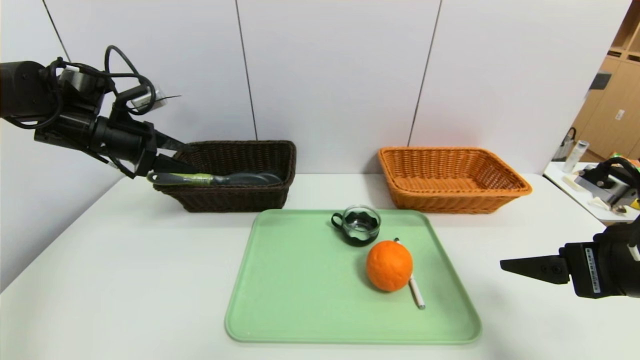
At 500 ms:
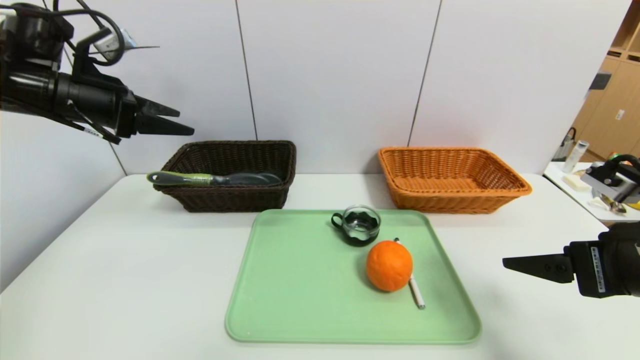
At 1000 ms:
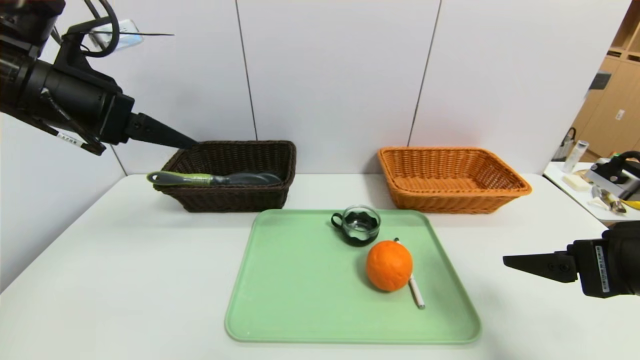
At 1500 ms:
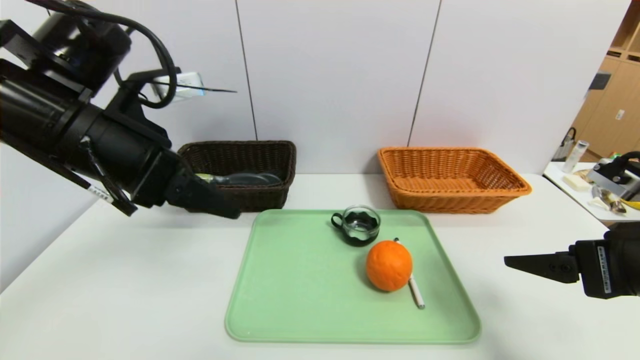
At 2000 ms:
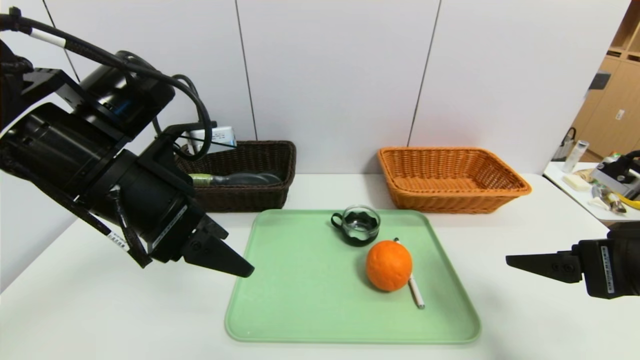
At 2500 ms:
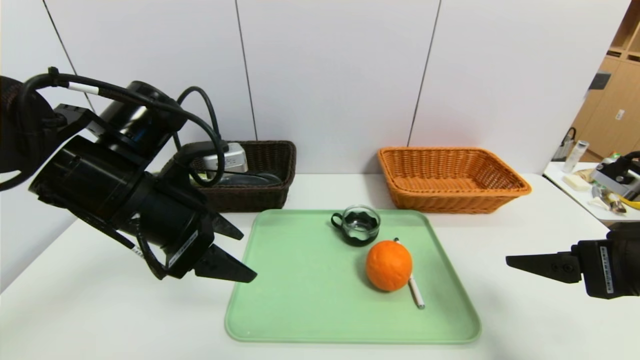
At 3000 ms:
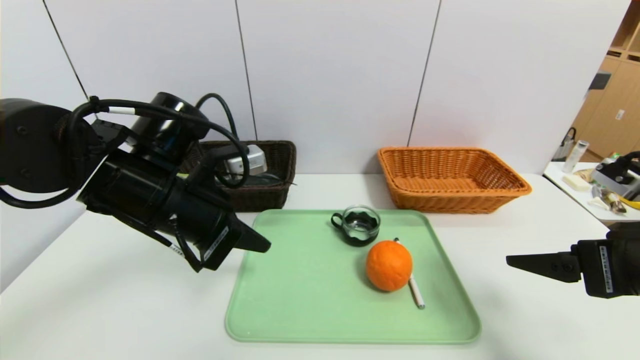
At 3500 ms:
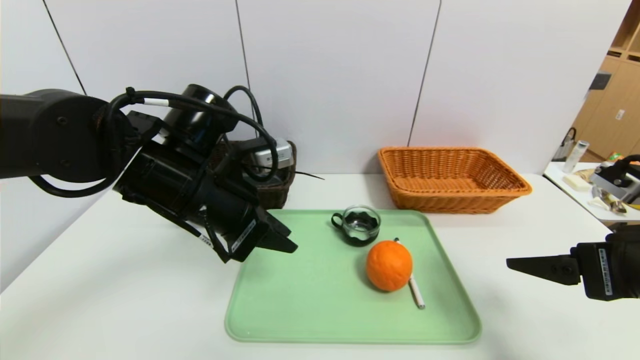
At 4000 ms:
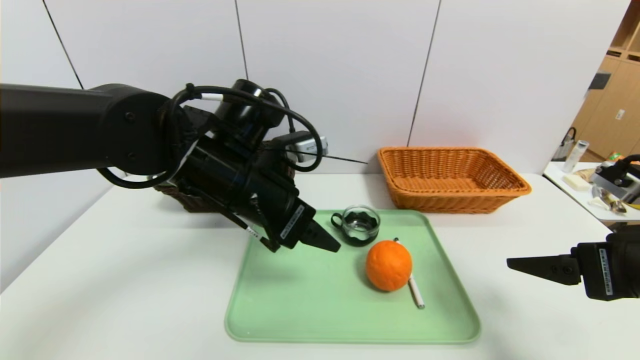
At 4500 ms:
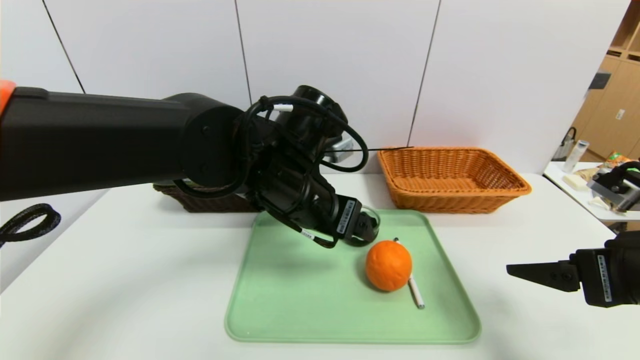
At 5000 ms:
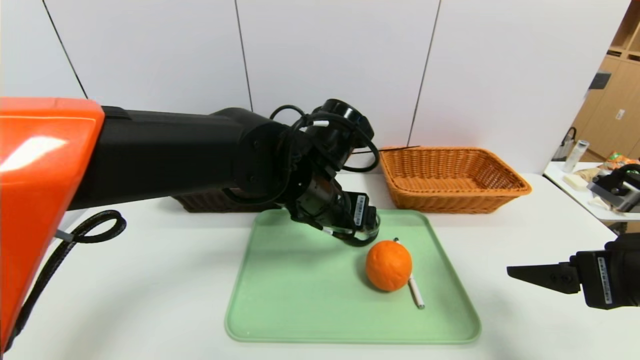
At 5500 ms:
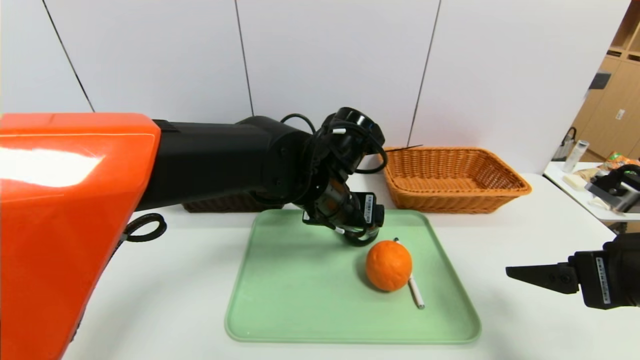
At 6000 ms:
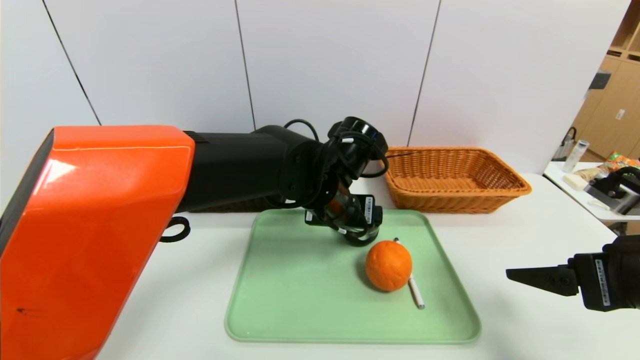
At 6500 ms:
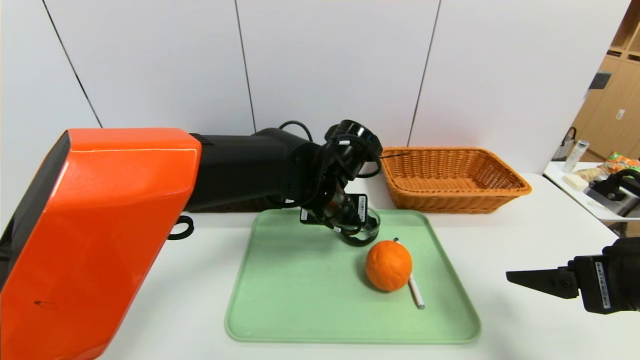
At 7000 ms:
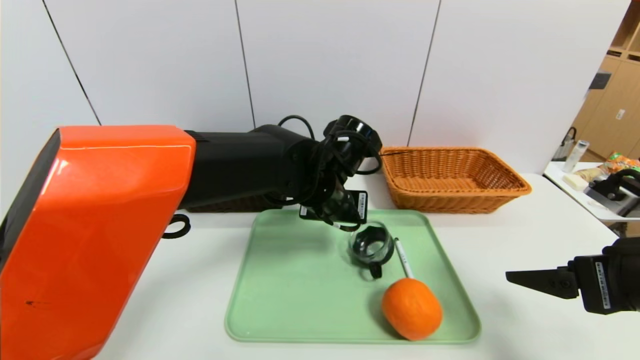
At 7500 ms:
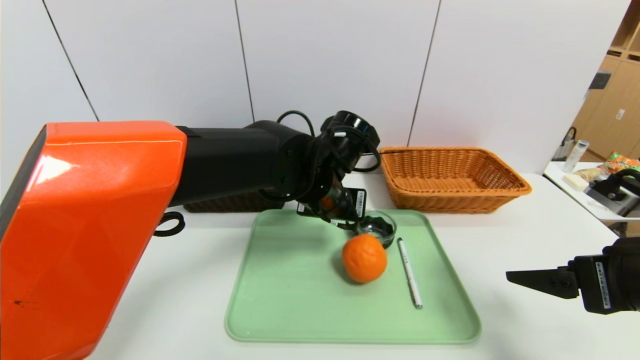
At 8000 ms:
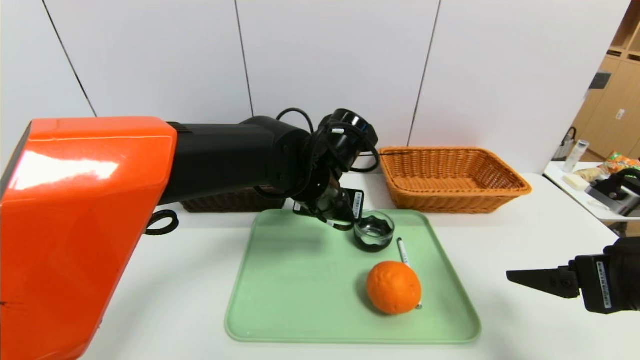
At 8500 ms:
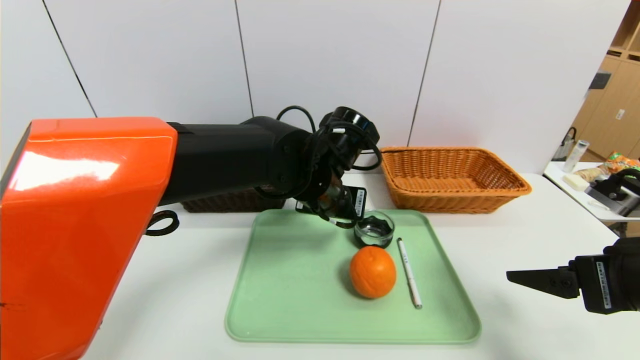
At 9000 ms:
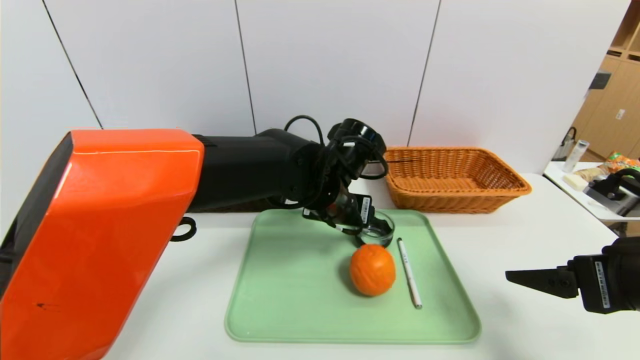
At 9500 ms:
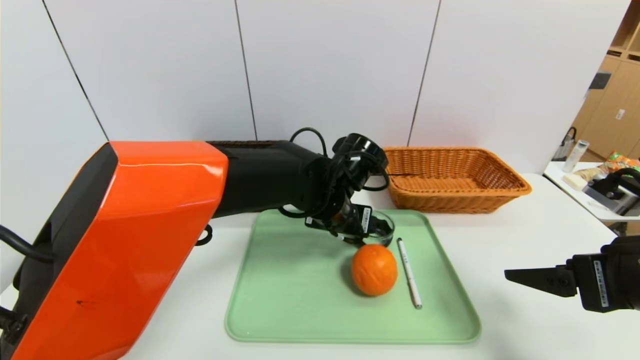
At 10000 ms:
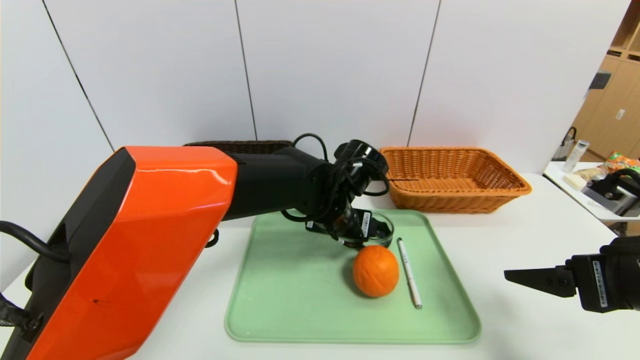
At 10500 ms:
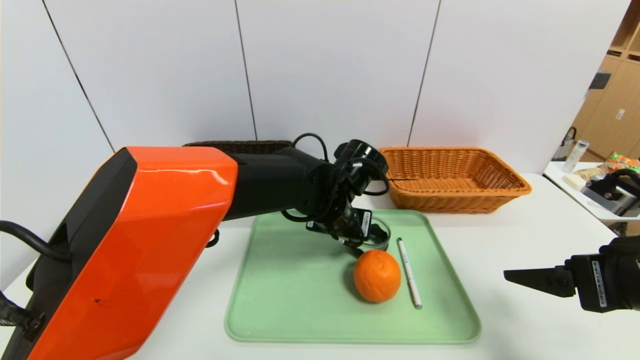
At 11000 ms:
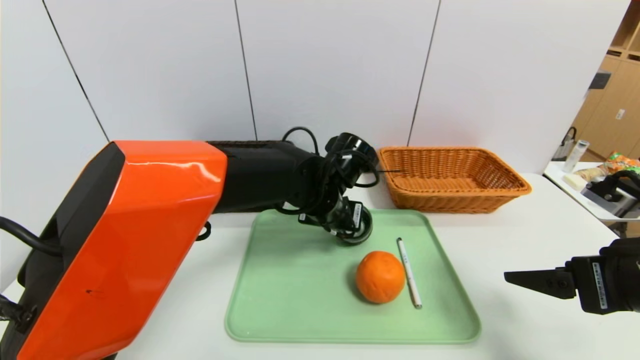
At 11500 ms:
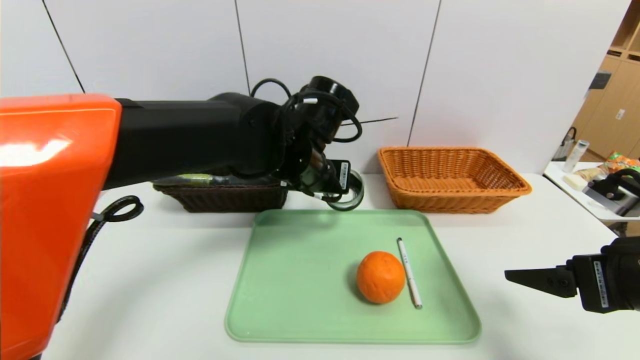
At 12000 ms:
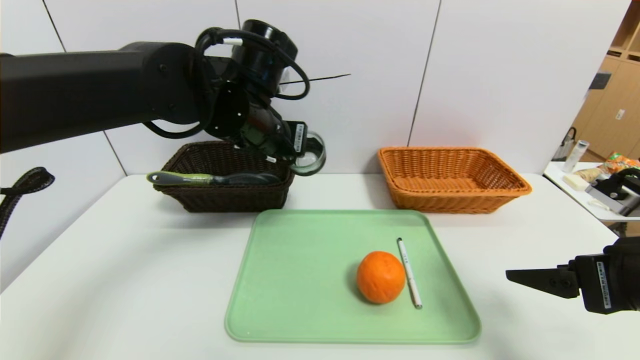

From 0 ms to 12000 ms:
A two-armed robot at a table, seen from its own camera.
Task of the whole recording: place the food in the right basket with the right gripper, and place the non food items in the left basket with the left gripper.
From 0 ms to 2000 ms: The left gripper shifts roughly 20 cm backward and to the right.
From 2000 ms to 4000 ms: The left gripper shifts roughly 10 cm to the right, and closes and opens again.
From 4000 ms to 6000 ms: The left gripper moves to the right, approximately 10 cm.
From 6000 ms to 8000 ms: The left gripper closes its fingers.
From 8000 ms to 10000 ms: The left gripper moves some 5 cm, and opens up.
From 10000 ms to 12000 ms: The left gripper shifts about 15 cm upward and to the left, and closes.

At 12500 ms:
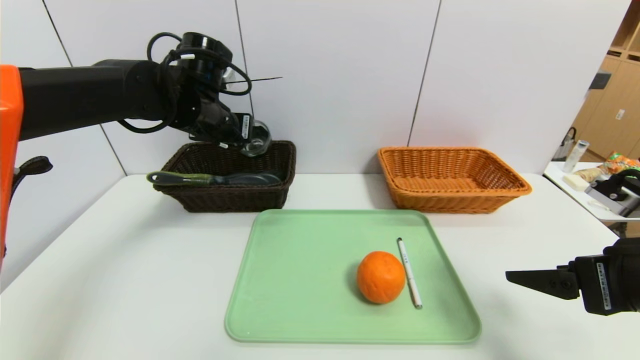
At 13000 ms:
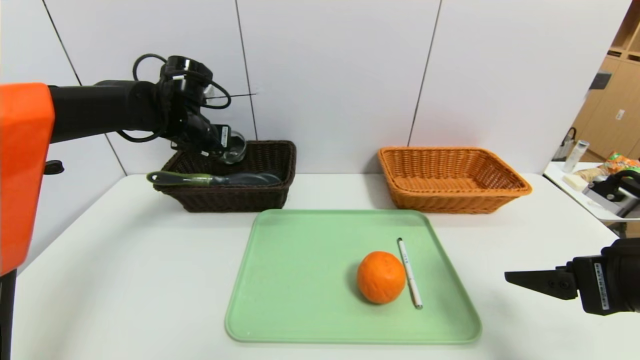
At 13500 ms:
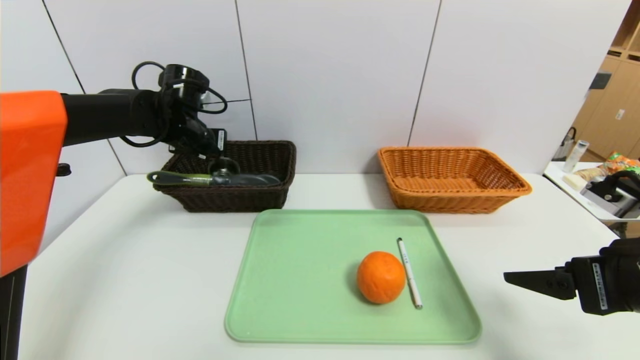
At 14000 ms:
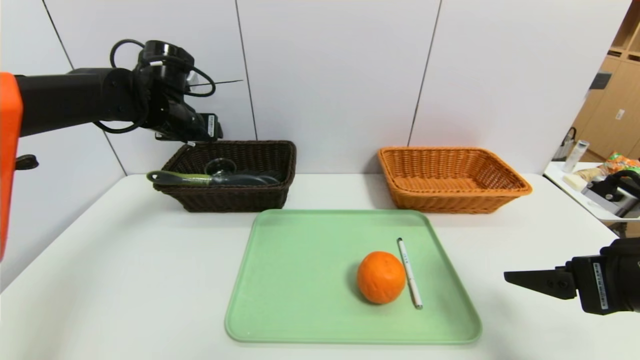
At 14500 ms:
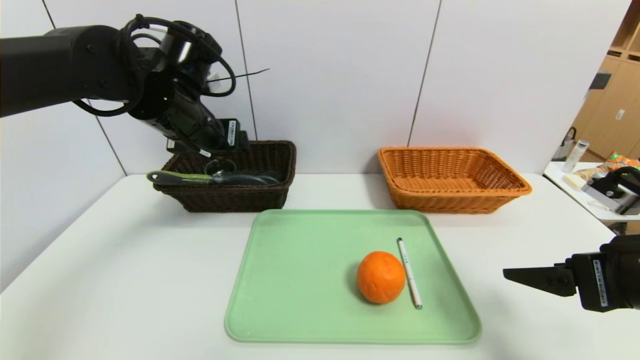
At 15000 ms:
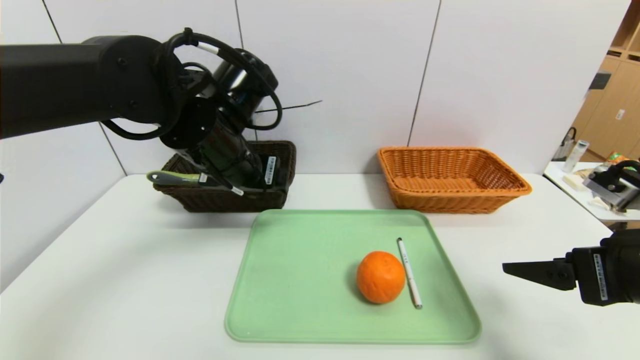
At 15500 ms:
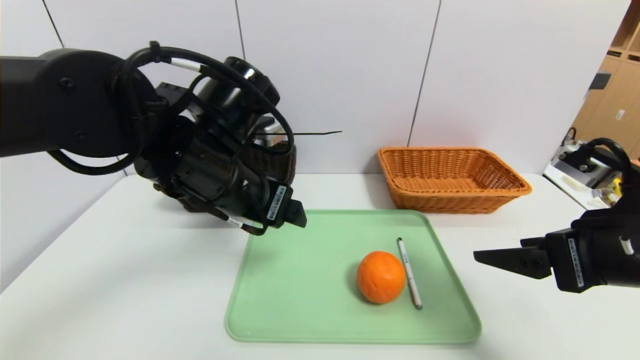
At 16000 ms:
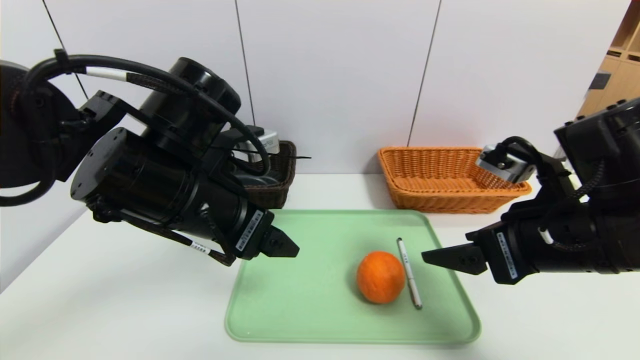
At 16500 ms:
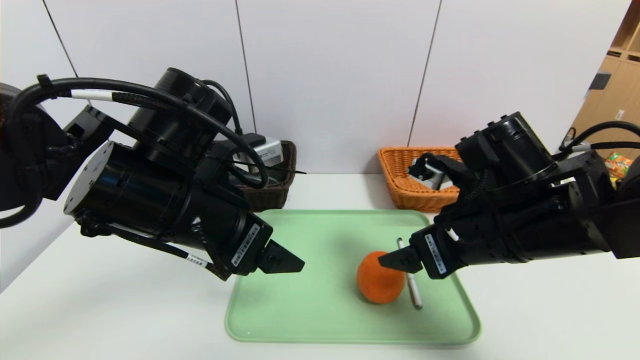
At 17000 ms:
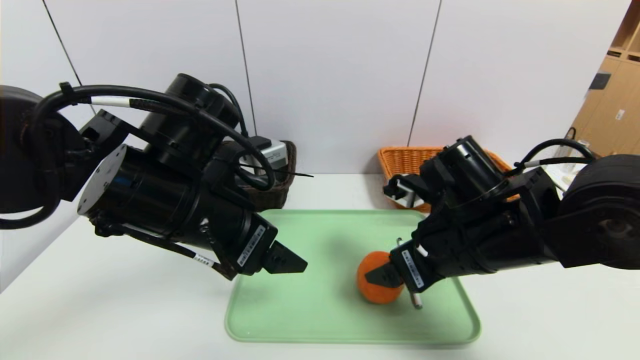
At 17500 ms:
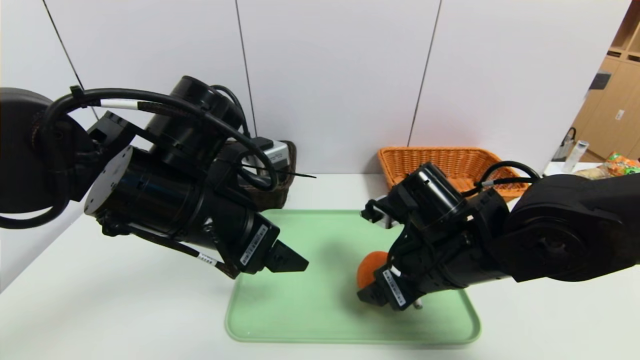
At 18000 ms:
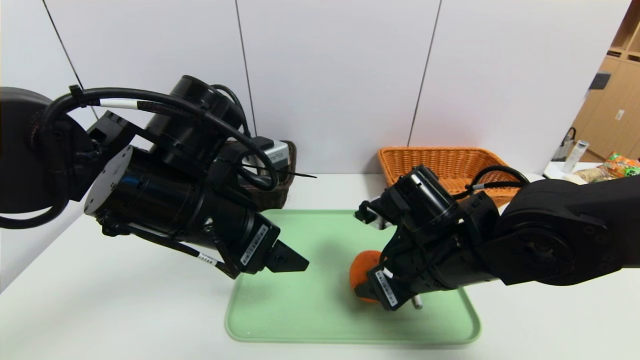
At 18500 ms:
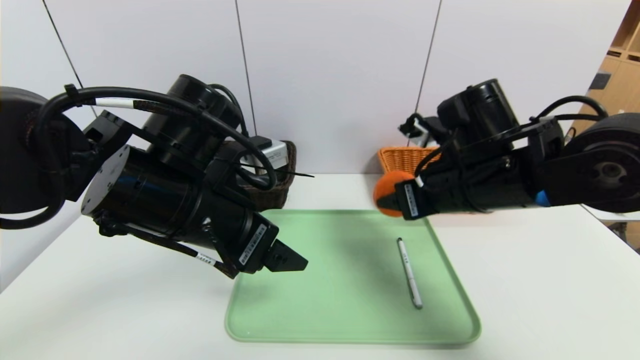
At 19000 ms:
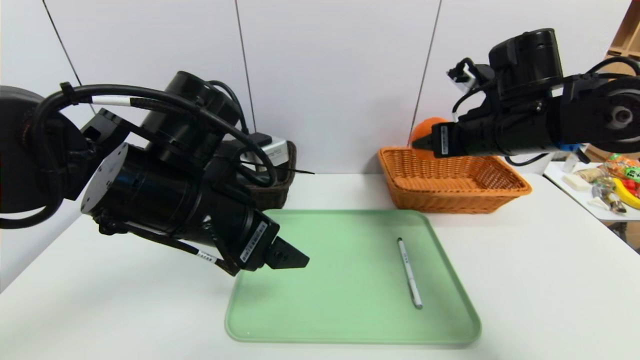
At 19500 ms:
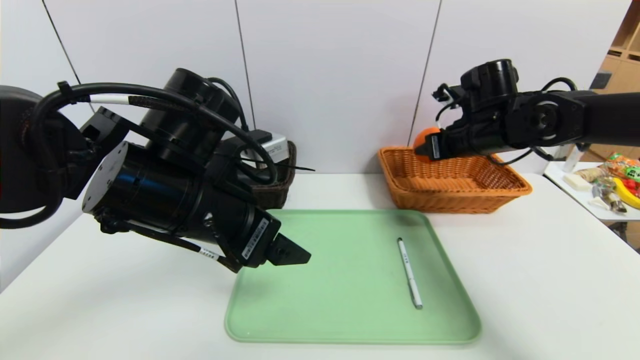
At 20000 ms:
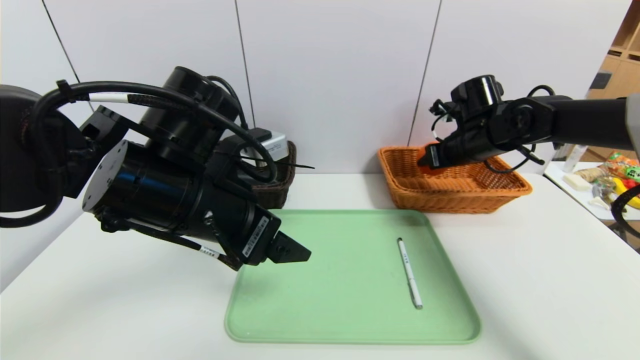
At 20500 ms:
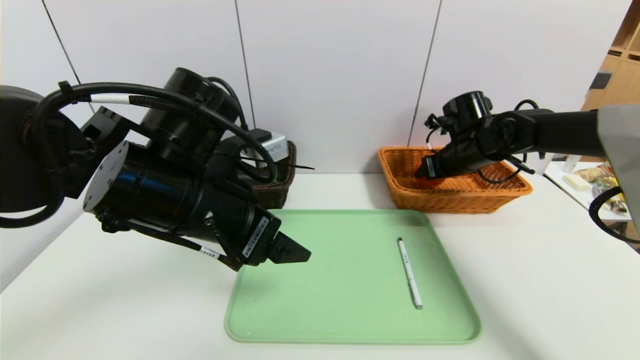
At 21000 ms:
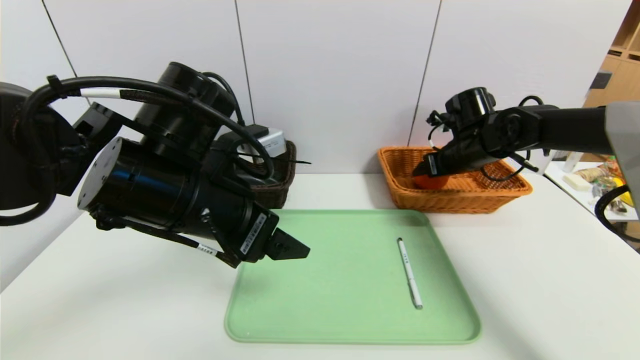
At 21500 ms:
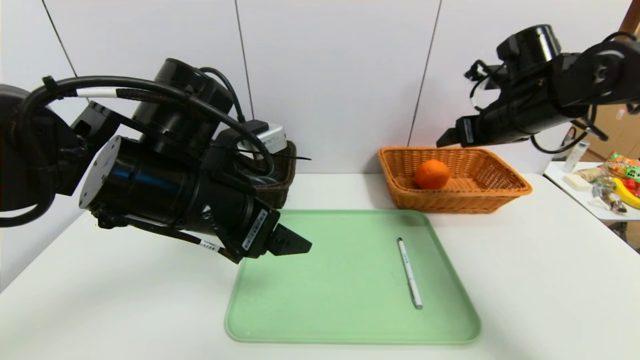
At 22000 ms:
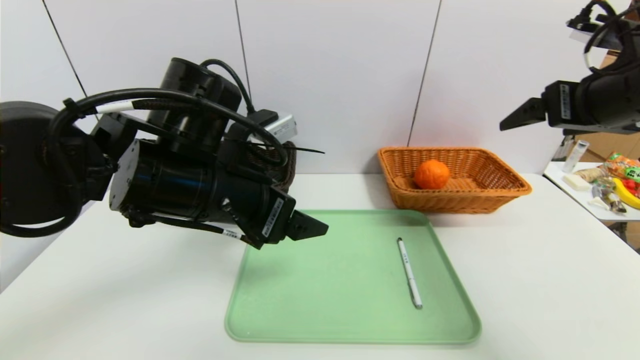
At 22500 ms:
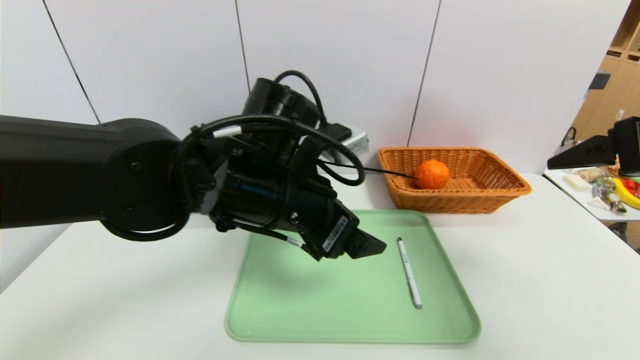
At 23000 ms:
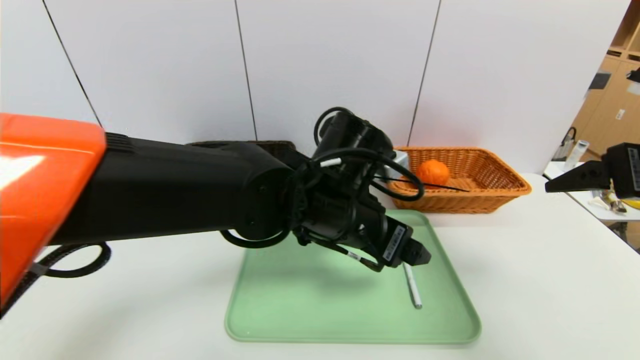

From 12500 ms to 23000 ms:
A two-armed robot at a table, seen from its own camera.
Task of the whole recording: place the food in the right basket with the right gripper, and place the non food items in the left basket with the left gripper.
Step, from 14000 ms to 20500 ms: Grasp the orange and put it in the right basket.
From 12500 ms to 14500 ms: The left gripper travels backward by about 5 cm, and opens up.
From 14500 ms to 16500 ms: The left gripper goes roughly 15 cm backward; the right gripper goes about 15 cm to the left and forward.
From 16500 ms to 19000 ms: The right gripper is displaced forward, upward and to the right by approximately 15 cm, and closes.
From 19000 ms to 21000 ms: The right gripper moves forward and downward, approximately 15 cm, and opens up.
From 21000 ms to 23000 ms: The left gripper moves to the right, about 15 cm, while the right gripper moves backward and upward, about 30 cm.
